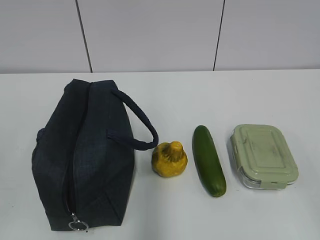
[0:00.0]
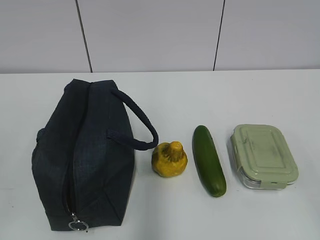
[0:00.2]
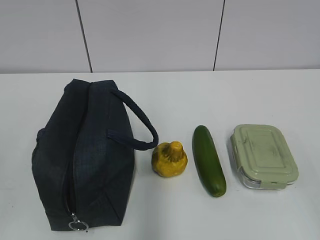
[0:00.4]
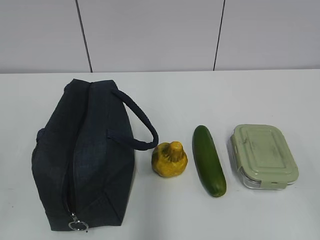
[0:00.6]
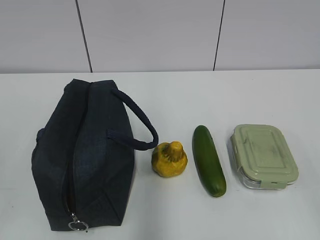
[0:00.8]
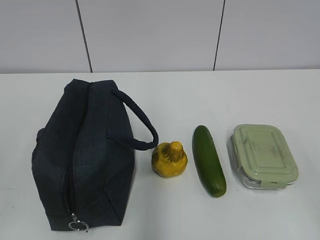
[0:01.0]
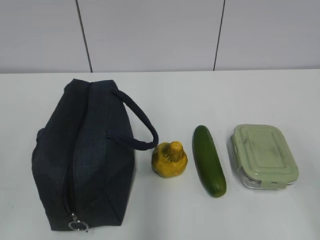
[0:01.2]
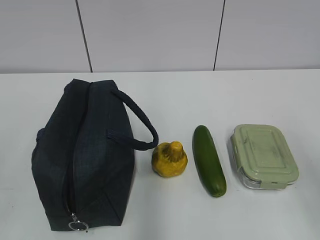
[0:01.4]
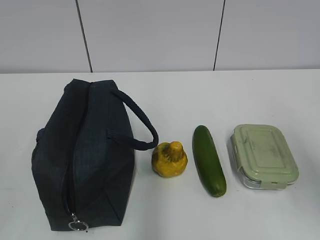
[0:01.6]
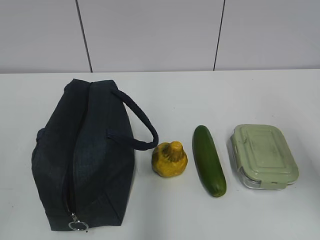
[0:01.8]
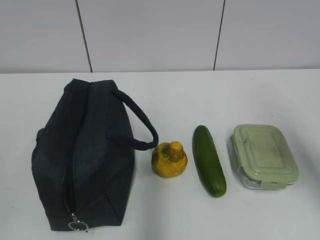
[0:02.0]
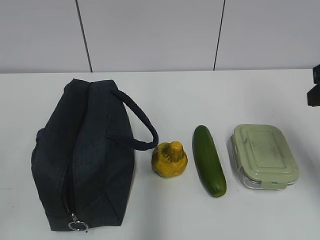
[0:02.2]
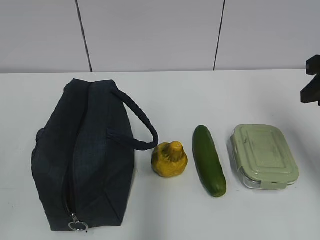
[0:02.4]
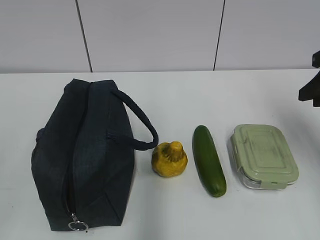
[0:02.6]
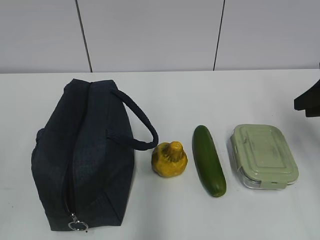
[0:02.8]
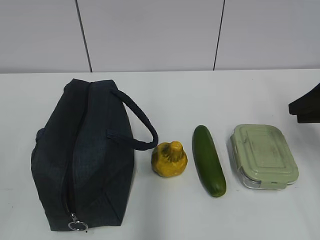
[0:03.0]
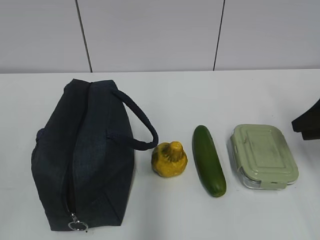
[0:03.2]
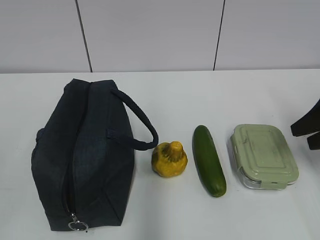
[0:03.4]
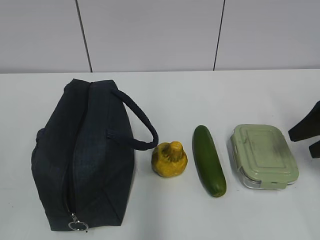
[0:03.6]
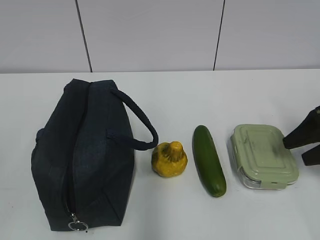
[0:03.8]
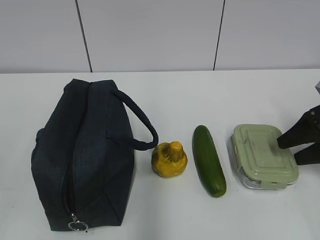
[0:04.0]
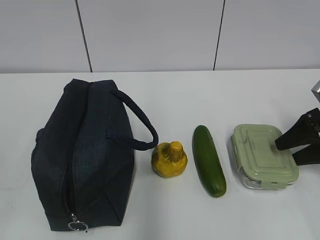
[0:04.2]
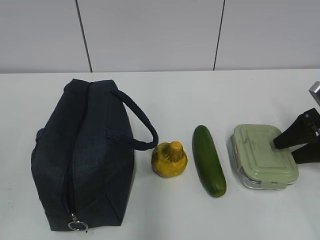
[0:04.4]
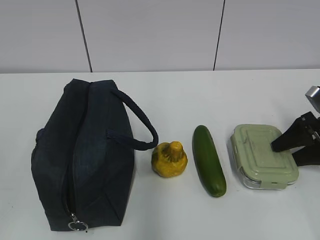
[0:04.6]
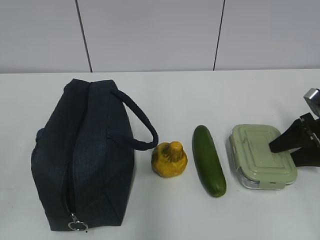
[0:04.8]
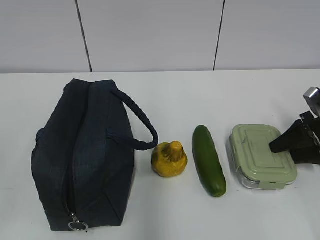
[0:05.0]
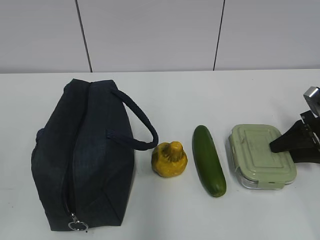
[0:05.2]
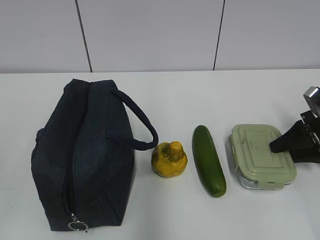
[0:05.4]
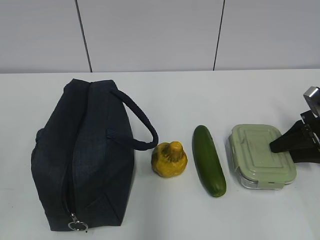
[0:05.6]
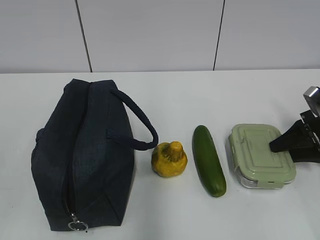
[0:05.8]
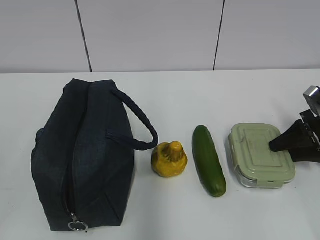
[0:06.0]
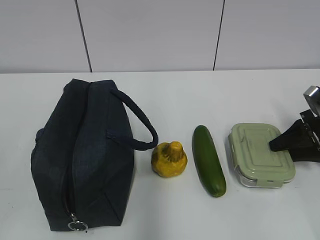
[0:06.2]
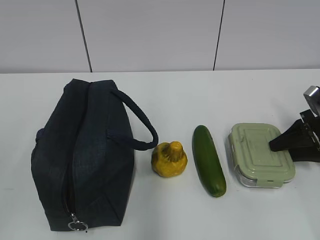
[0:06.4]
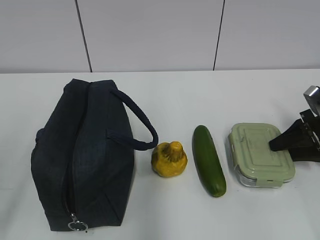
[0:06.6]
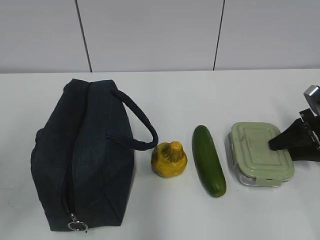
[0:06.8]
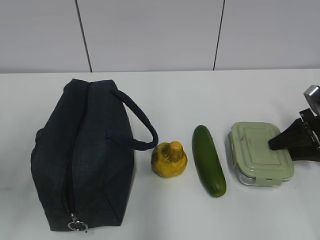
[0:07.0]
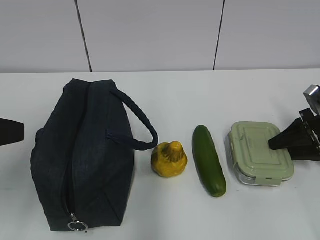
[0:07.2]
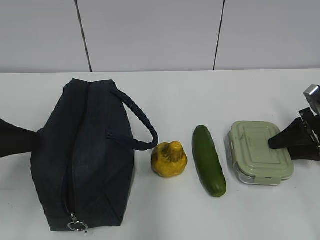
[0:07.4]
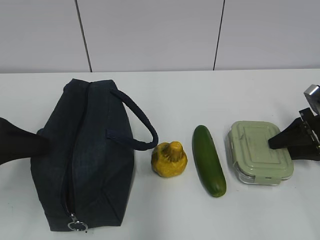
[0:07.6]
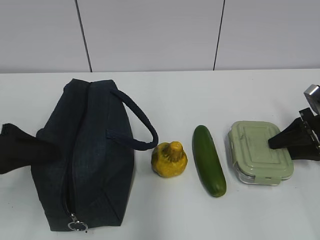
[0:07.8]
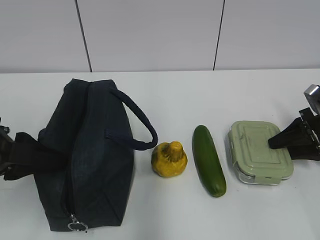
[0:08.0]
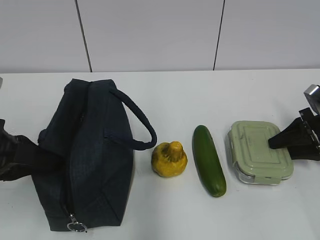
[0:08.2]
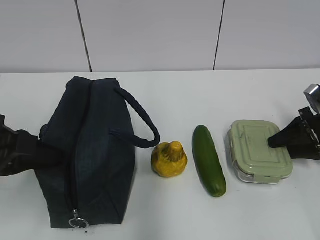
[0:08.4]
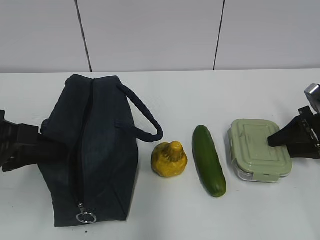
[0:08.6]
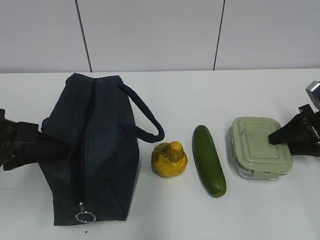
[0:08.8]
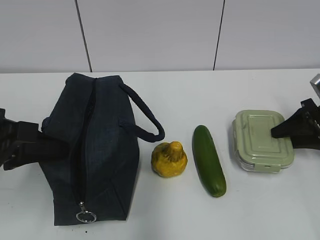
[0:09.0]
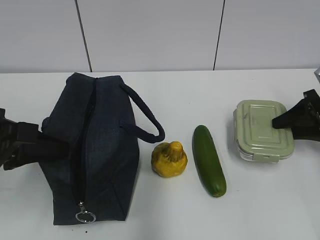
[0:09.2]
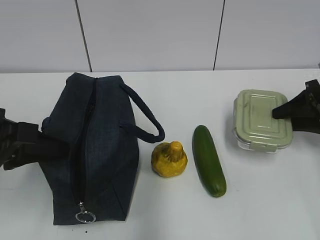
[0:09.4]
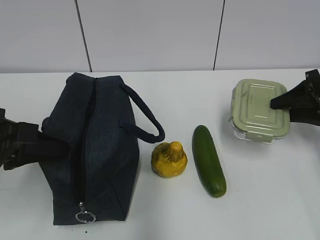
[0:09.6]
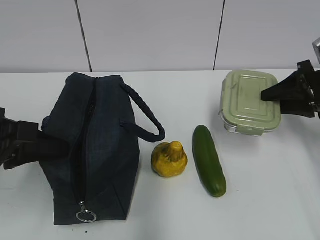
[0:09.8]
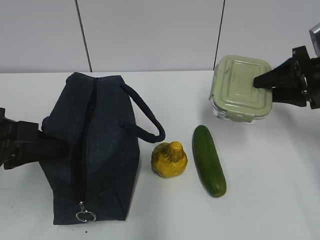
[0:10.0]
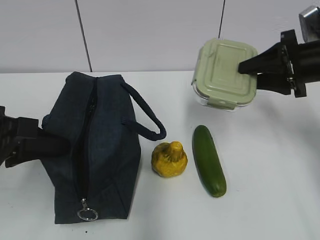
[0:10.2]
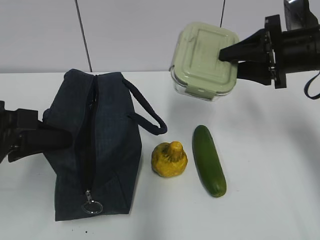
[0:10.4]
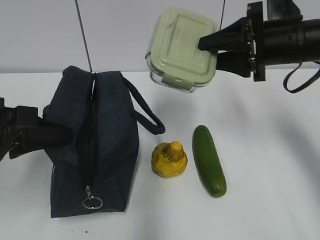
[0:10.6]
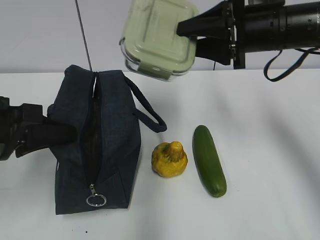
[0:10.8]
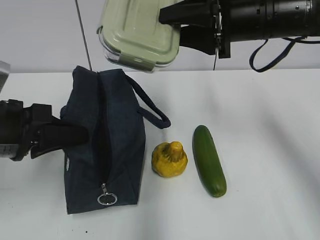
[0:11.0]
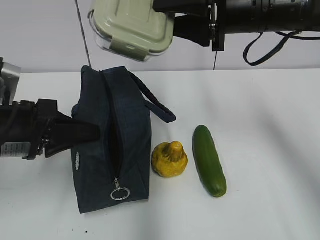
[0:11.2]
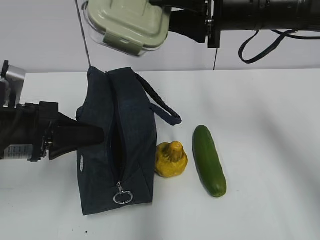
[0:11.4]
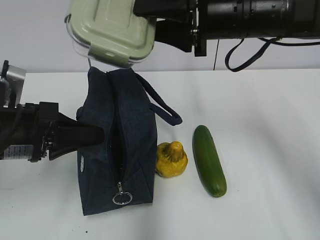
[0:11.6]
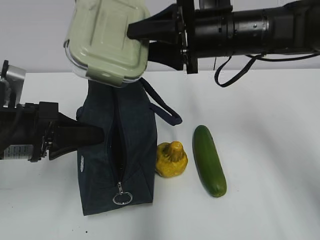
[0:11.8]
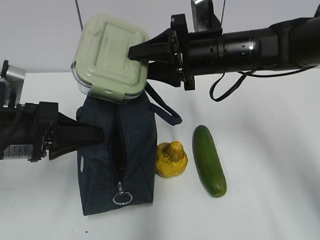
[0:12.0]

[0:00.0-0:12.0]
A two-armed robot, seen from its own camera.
0:01.6 to 0:03.0: The right gripper shifts about 20 cm forward and downward.
0:03.0 to 0:04.4: The right gripper travels downward by roughly 10 cm, and opens up.
0:04.4 to 0:06.0: The right gripper closes its fingers.
0:06.0 to 0:07.6: The left gripper goes approximately 20 cm forward.
0:07.6 to 0:09.0: The left gripper closes its fingers.
0:09.0 to 0:10.4: The right gripper is displaced upward and to the left by approximately 15 cm.
0:10.4 to 0:12.0: The right gripper moves to the left, about 15 cm.

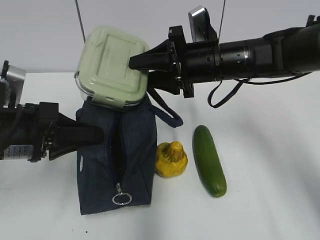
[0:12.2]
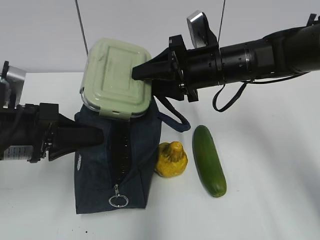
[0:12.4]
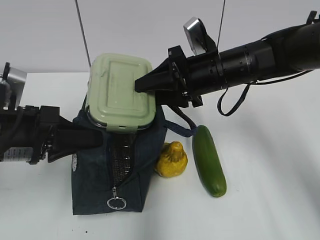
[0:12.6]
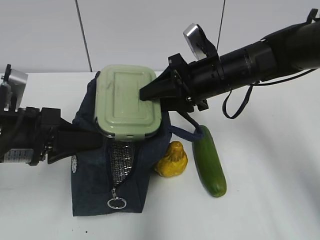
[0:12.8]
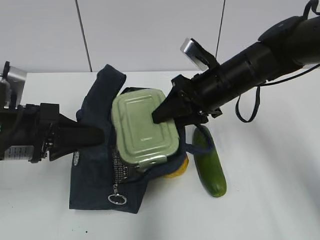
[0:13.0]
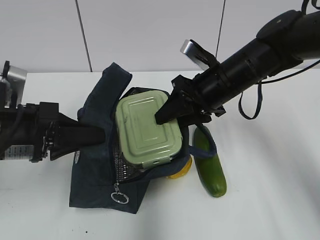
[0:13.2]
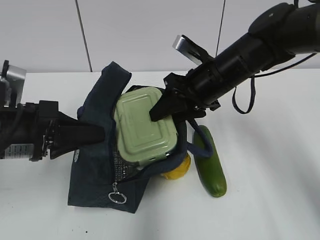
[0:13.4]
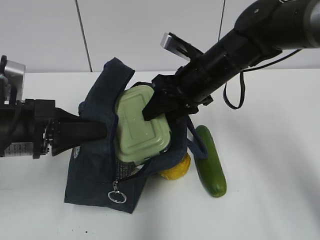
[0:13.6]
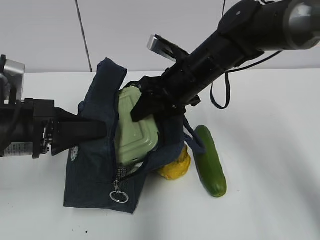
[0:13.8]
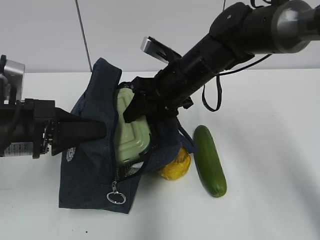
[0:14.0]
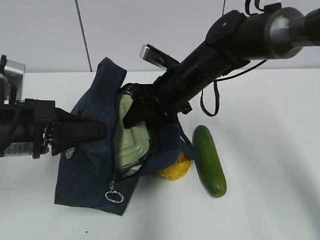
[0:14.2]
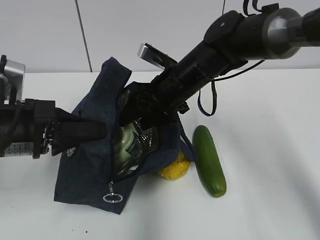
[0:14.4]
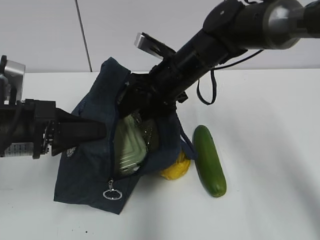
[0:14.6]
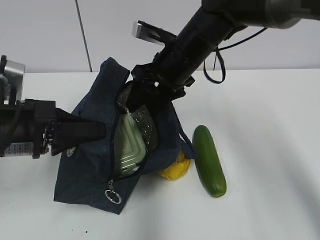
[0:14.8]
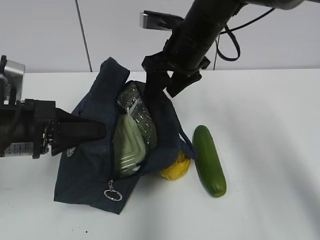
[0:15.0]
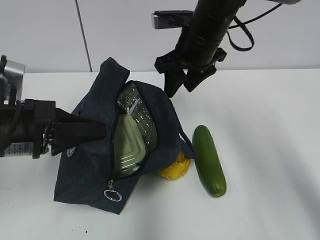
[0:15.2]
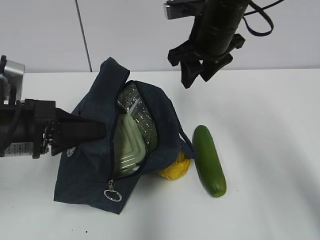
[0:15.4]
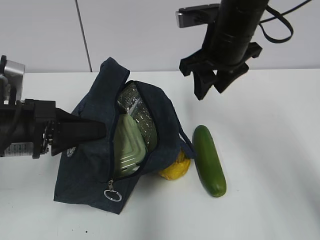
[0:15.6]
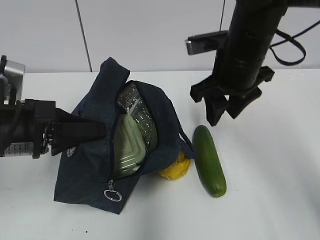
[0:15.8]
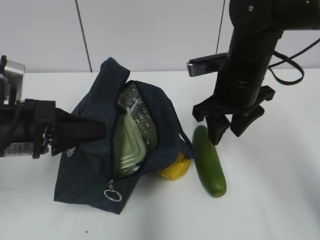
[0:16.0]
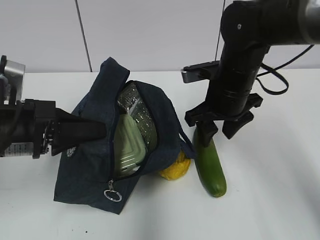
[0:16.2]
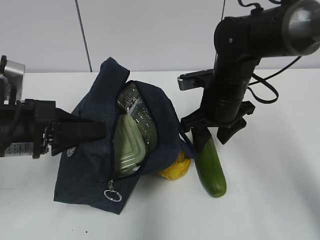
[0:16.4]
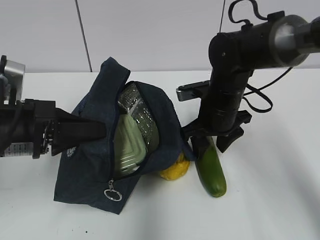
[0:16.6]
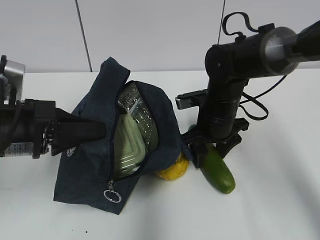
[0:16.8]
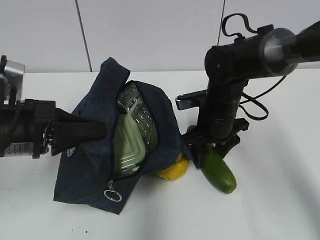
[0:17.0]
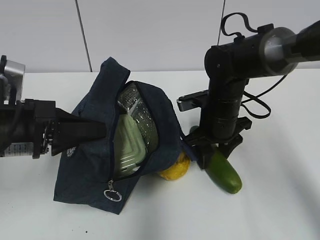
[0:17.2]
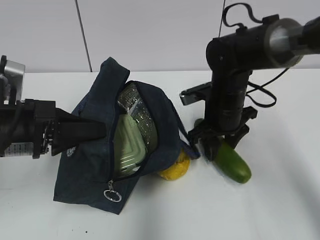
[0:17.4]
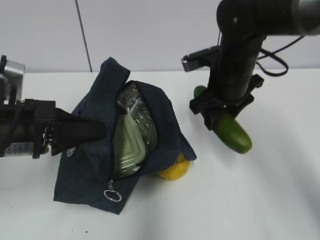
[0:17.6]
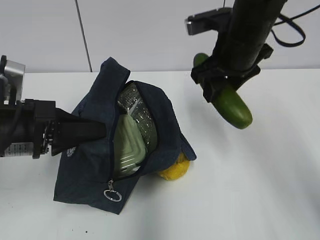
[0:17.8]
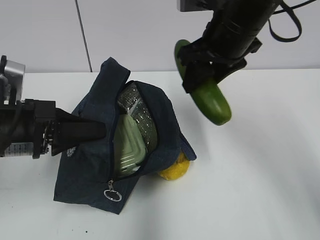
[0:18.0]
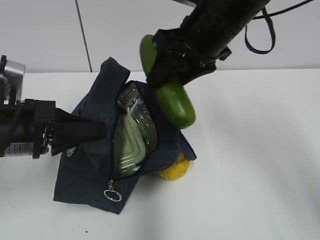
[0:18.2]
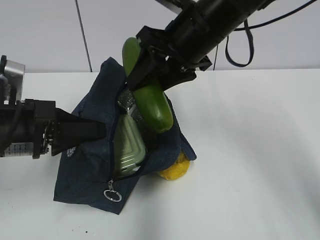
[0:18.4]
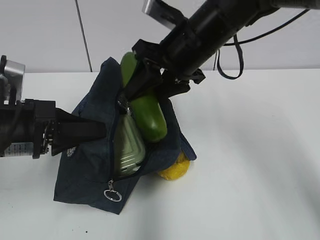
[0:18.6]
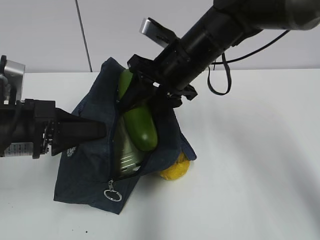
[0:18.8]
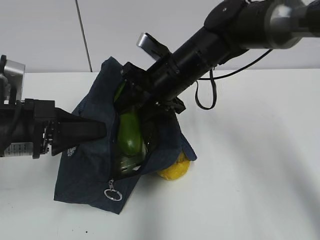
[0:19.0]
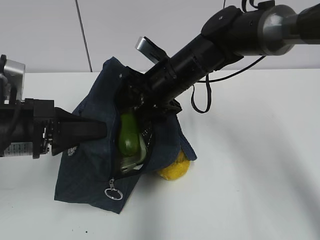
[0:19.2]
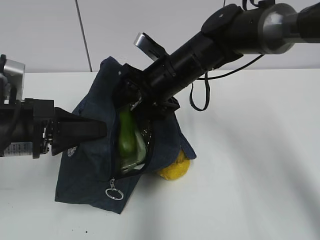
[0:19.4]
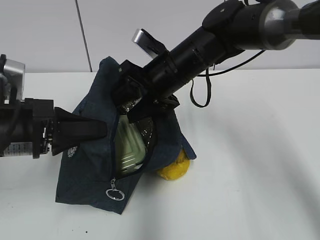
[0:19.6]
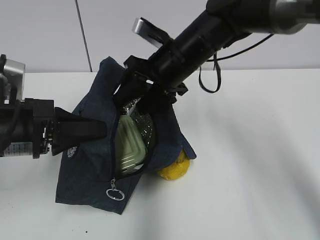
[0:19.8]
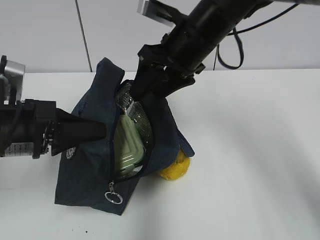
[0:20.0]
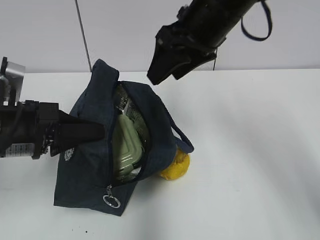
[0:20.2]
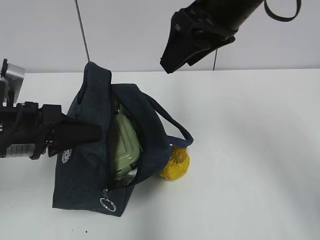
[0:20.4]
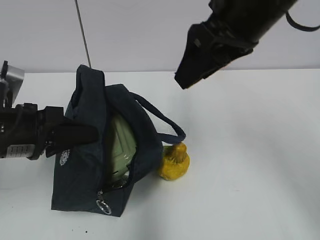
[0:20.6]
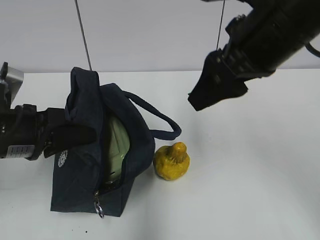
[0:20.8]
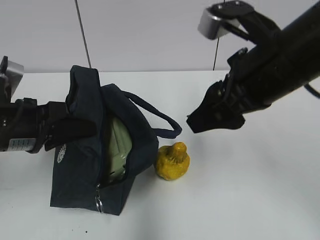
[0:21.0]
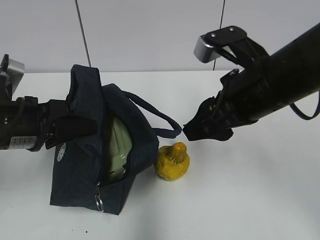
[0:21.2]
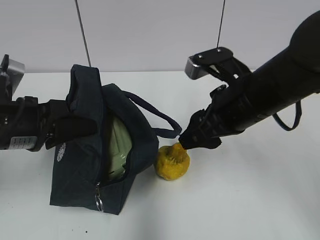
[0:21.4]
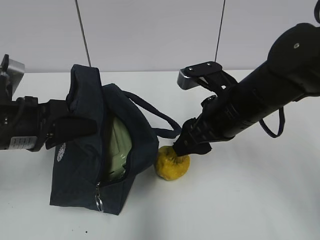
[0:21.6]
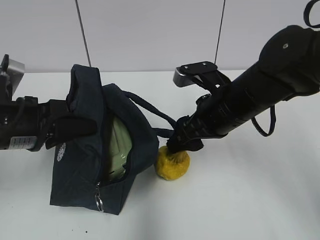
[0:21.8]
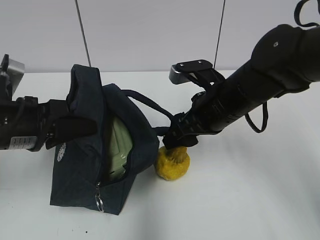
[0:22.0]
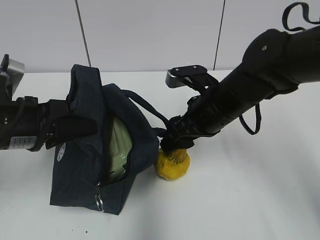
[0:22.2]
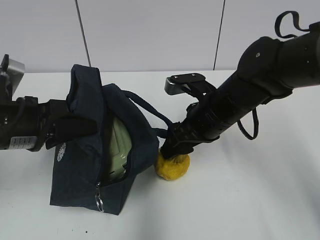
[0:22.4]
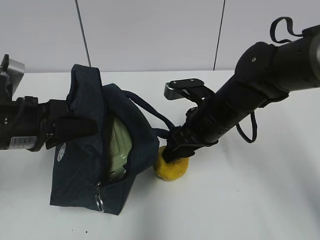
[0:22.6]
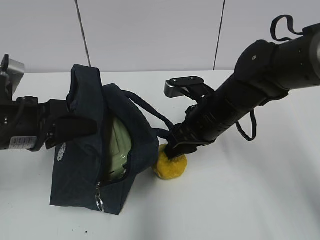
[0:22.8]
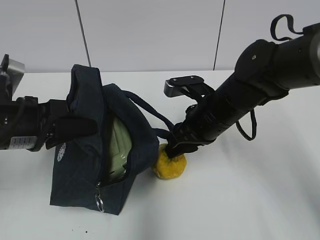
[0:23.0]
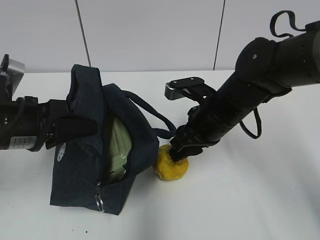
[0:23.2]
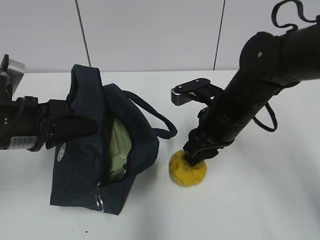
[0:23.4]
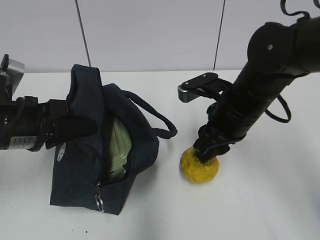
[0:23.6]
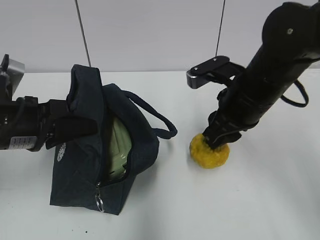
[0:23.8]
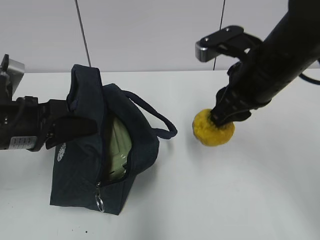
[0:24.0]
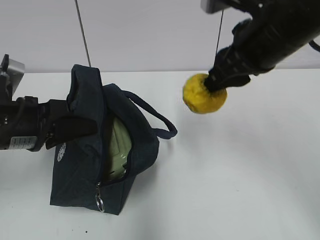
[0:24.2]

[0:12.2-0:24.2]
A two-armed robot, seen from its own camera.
0:13.8 to 0:15.2: The right gripper shifts by roughly 5 cm.
0:15.2 to 0:16.6: The right gripper heads downward, covering roughly 10 cm.
0:16.6 to 0:18.2: The right gripper heads upward, covering some 15 cm.
0:18.2 to 0:19.8: The right gripper shifts approximately 5 cm downward.
0:19.8 to 0:21.2: The right gripper travels backward and to the right by about 15 cm.
0:21.2 to 0:22.6: The right gripper travels downward and forward by roughly 10 cm.
0:22.6 to 0:24.2: The right gripper moves upward, roughly 15 cm, and closes up.
